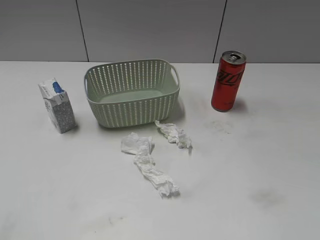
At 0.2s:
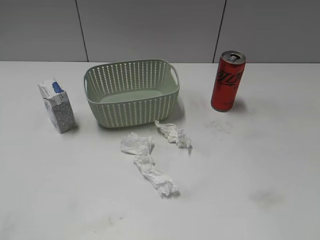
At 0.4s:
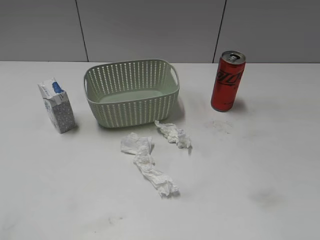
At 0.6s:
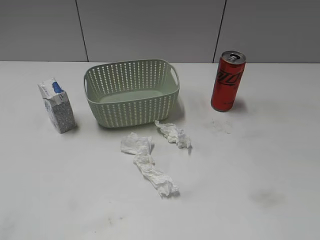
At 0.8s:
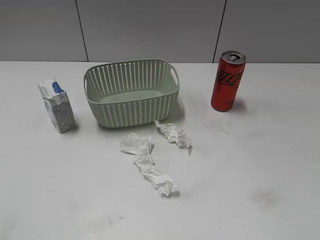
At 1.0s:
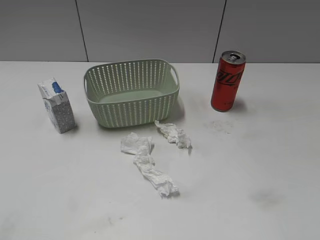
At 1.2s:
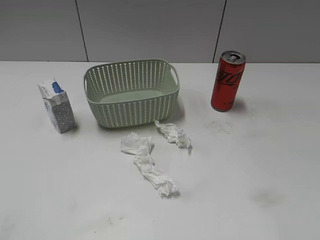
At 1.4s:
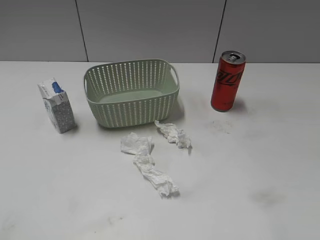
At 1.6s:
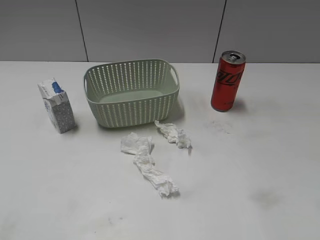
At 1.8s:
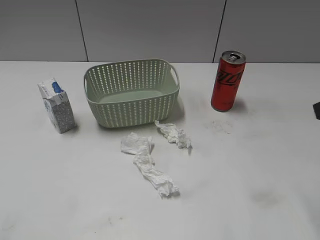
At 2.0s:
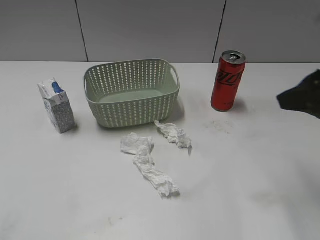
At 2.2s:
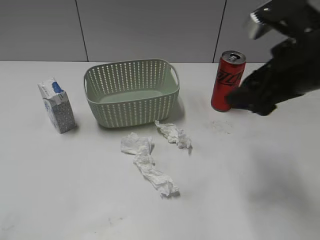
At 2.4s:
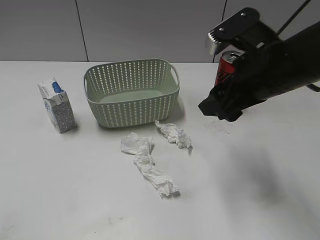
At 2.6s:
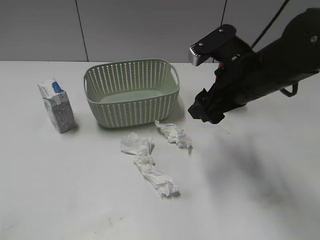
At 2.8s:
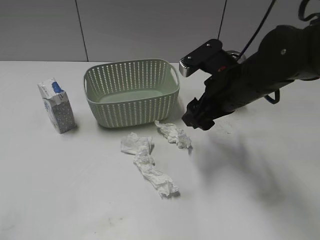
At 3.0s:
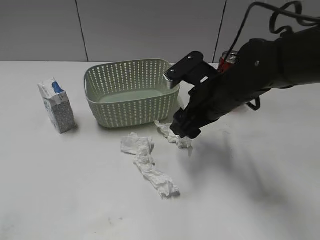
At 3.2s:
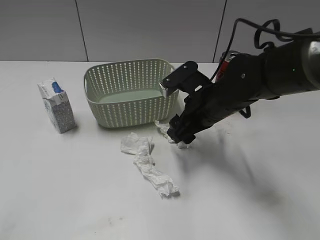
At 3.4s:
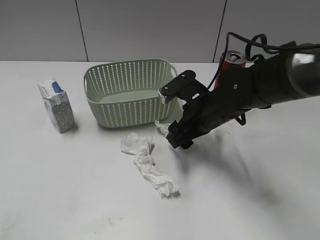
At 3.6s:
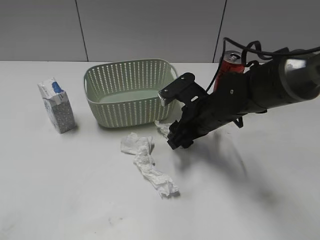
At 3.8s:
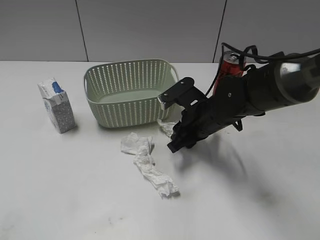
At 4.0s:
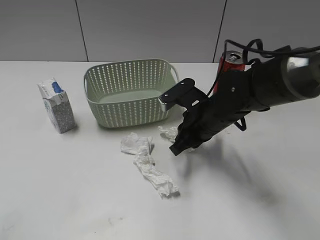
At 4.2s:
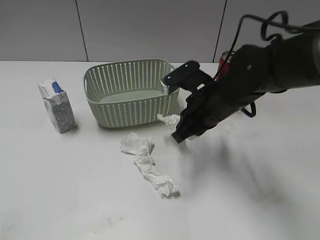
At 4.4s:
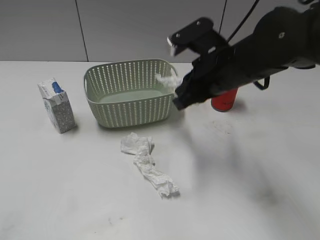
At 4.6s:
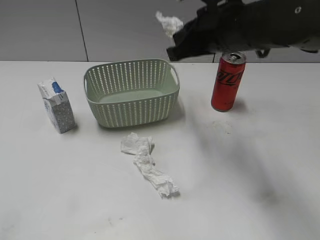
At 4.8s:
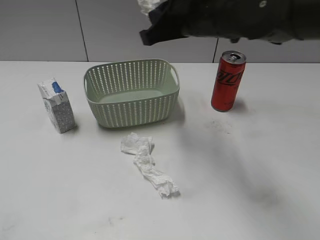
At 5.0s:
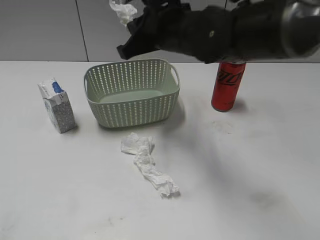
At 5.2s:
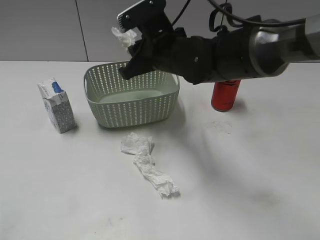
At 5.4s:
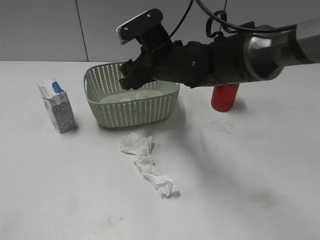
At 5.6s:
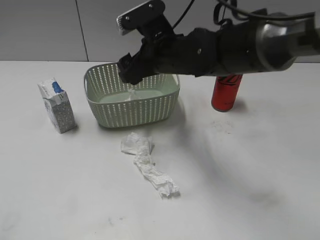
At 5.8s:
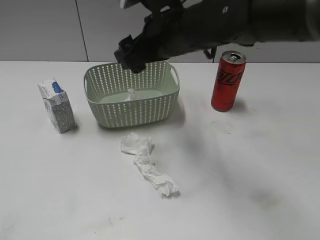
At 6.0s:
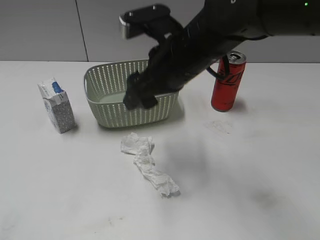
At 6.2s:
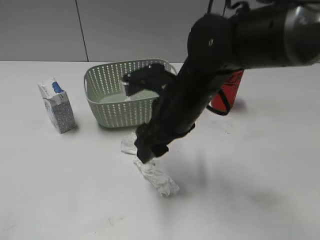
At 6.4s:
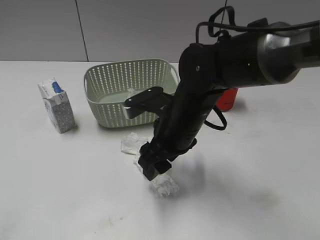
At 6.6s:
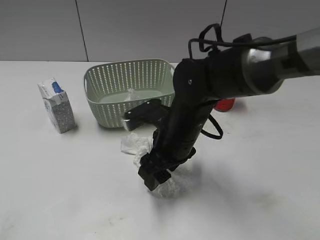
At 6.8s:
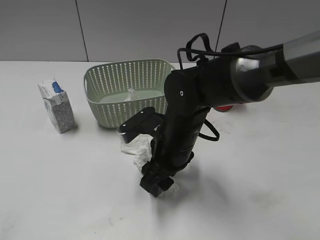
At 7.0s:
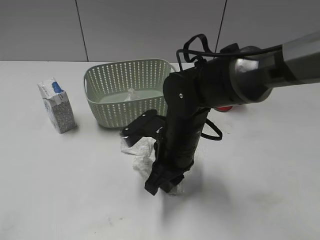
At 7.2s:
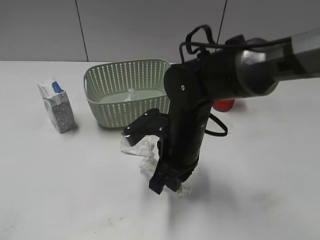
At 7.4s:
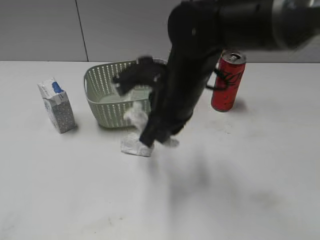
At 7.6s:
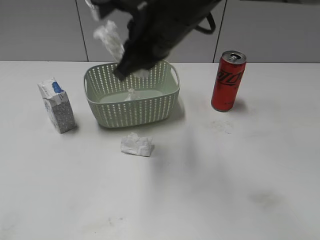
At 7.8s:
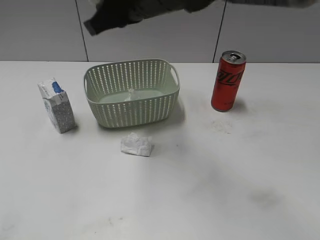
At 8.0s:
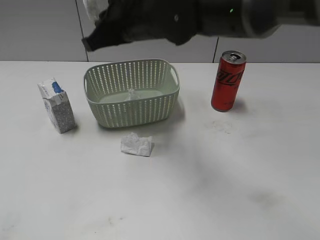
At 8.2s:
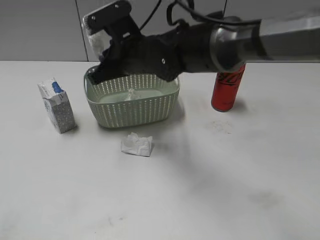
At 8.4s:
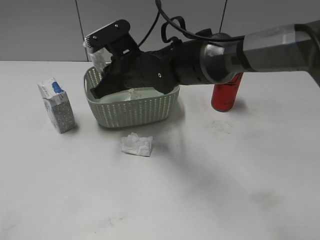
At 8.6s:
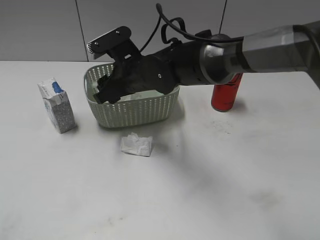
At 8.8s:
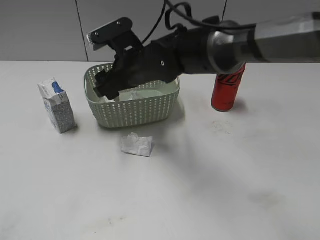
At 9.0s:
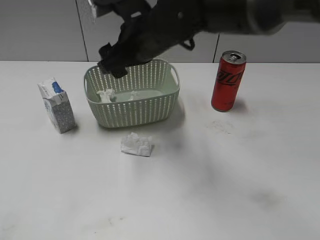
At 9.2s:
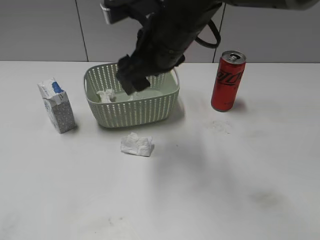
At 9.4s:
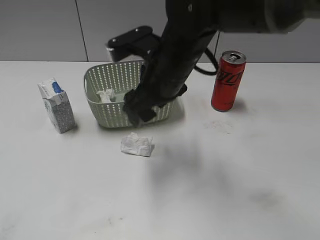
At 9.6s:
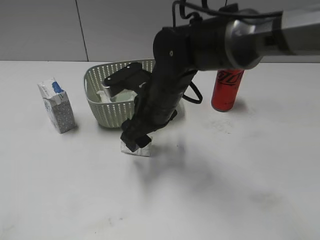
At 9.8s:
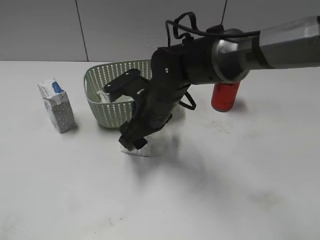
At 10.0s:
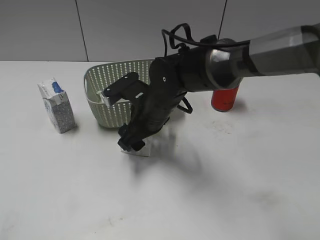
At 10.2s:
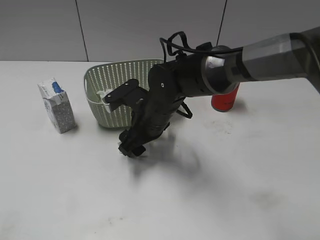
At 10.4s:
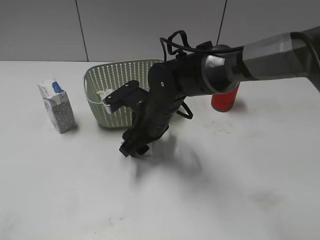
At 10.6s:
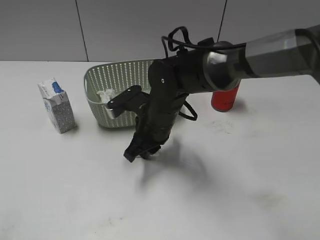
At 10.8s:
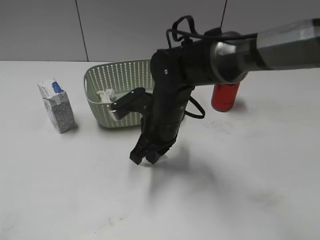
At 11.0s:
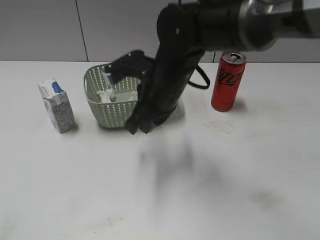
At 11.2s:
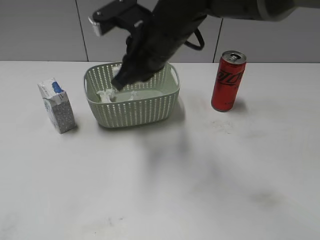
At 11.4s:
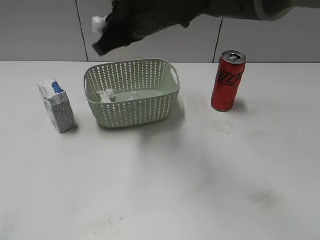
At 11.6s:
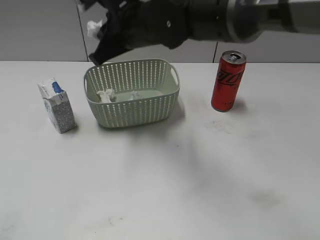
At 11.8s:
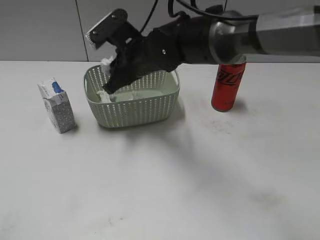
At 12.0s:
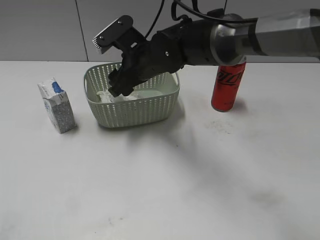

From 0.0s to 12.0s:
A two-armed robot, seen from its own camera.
Step, from 1.8s to 4.0s: Grasp the waste paper with right gripper.
Step, from 4.2s to 5.4s: Place the waste paper in the basket with right gripper.
Step, from 5.6s to 7.0s: Grasp the waste paper with right gripper.
Step, from 7.2s to 9.0s: Place the waste paper in the basket with right gripper.
Step, from 9.2s to 11.0s: Grasp the waste paper with right gripper.
From 1.6s to 3.0s: The right gripper travels forward, to the left and downward by some 30 cm.
From 3.0s to 4.4s: The right gripper closes its fingers.
From 4.4s to 6.0s: The right gripper moves up and down over approximately 10 cm, changing direction 2 times, and opens.
From 6.0s to 7.6s: The right gripper goes downward and returns, approximately 15 cm each way, and closes.
From 7.6s to 9.0s: The right gripper reaches approximately 10 cm downward, then returns, and opens its fingers.
From 9.0s to 10.4s: The right gripper is displaced downward by about 15 cm.
From 10.4s to 12.0s: The right gripper is displaced upward and forward by some 10 cm, and closes, then opens again.

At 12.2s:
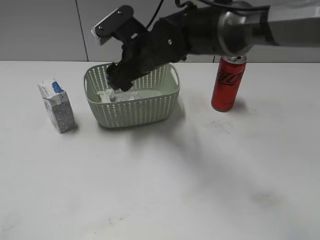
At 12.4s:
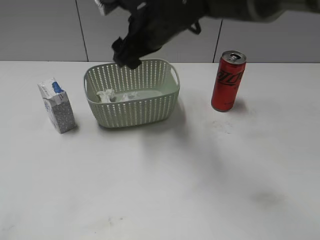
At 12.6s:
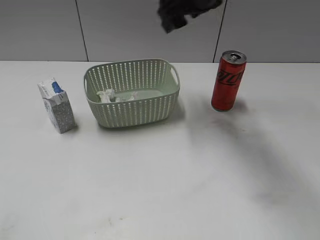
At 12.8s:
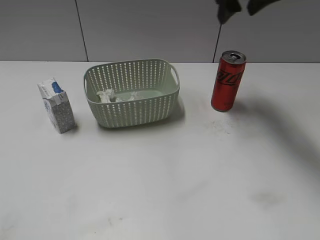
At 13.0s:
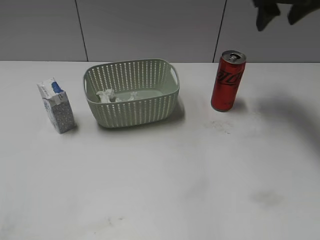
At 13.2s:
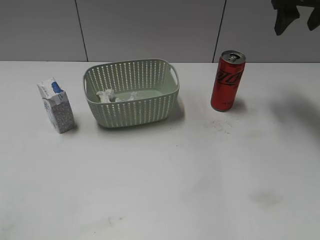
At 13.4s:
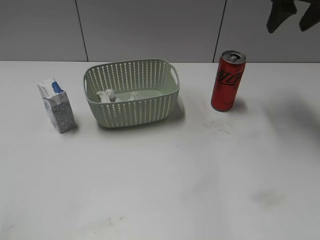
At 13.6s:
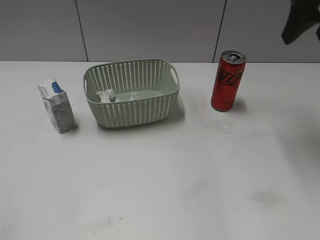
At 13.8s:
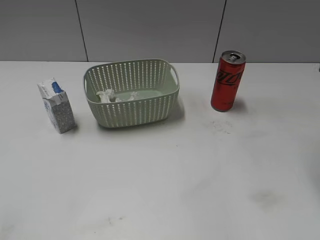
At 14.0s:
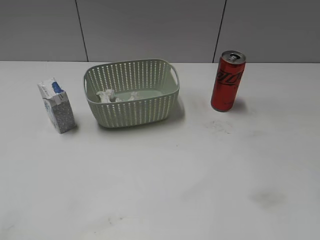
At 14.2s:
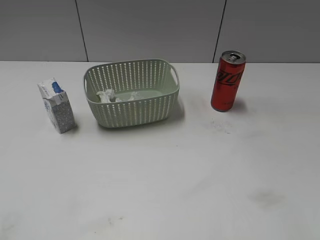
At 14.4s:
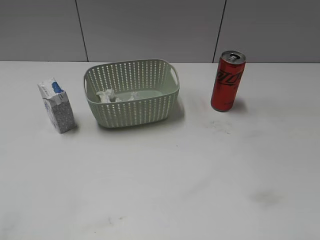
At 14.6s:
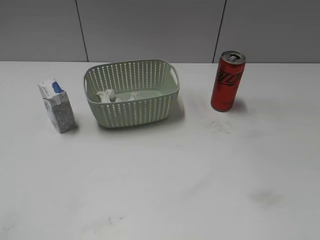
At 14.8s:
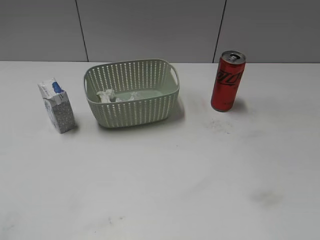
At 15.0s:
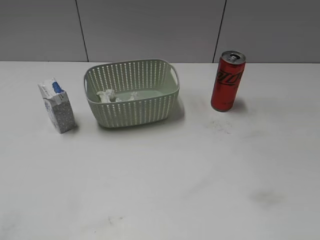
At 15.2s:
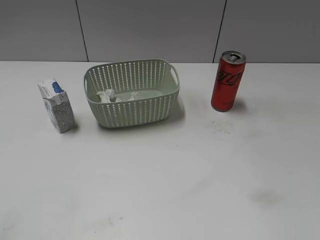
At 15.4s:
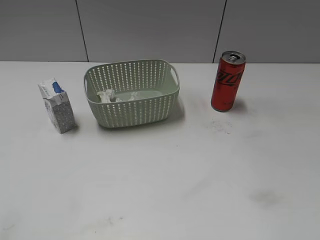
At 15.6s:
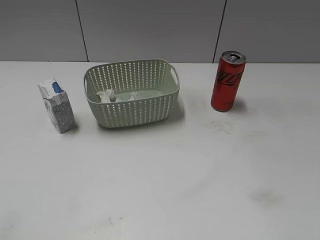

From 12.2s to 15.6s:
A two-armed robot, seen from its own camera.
From 12.2s to 13.8s: The right gripper travels to the right and upward by some 30 cm.

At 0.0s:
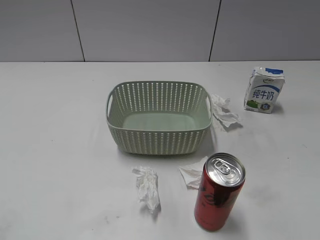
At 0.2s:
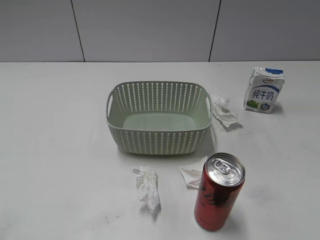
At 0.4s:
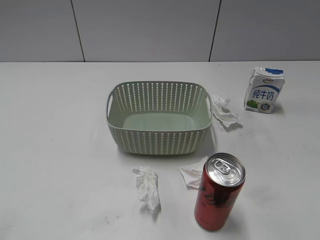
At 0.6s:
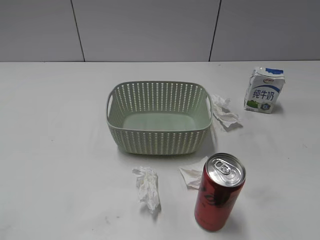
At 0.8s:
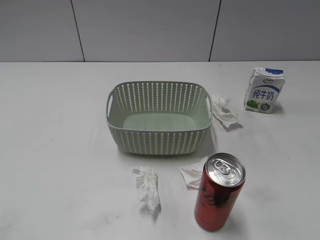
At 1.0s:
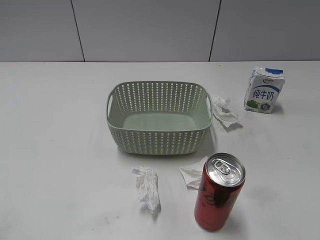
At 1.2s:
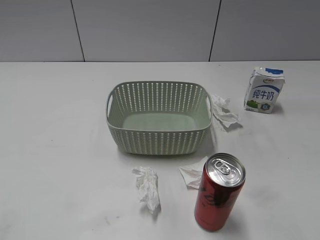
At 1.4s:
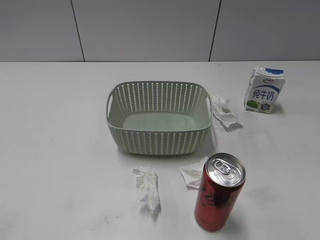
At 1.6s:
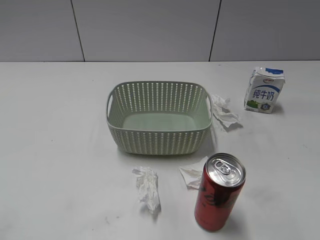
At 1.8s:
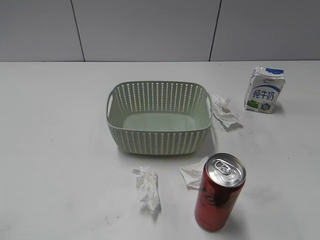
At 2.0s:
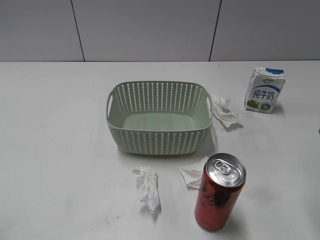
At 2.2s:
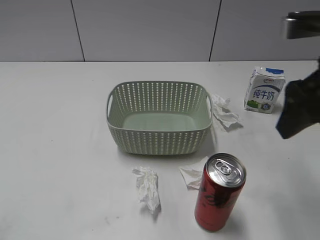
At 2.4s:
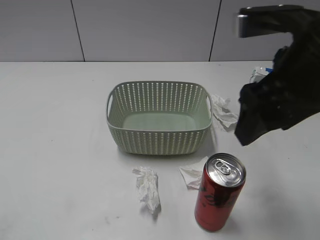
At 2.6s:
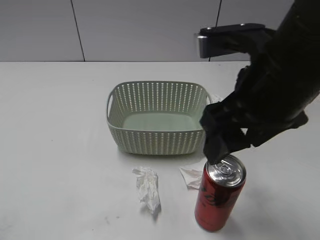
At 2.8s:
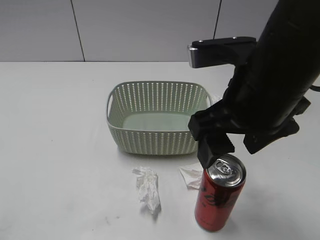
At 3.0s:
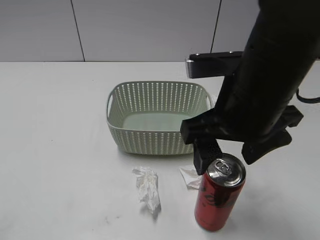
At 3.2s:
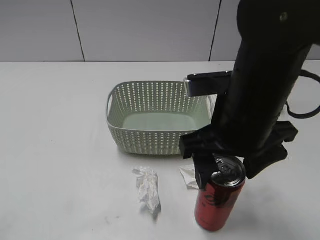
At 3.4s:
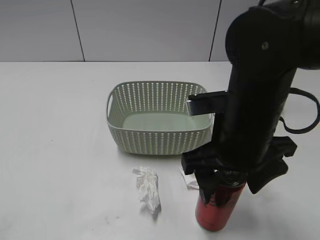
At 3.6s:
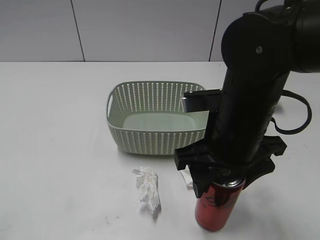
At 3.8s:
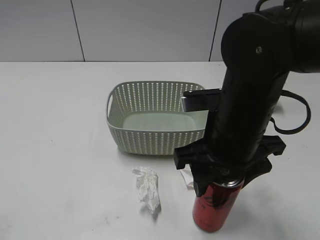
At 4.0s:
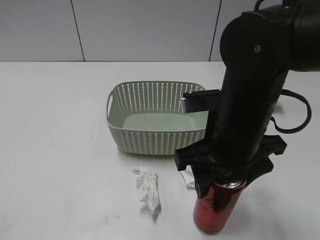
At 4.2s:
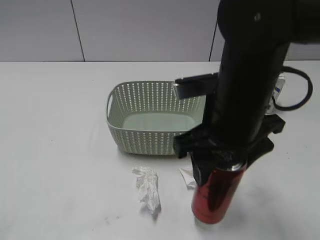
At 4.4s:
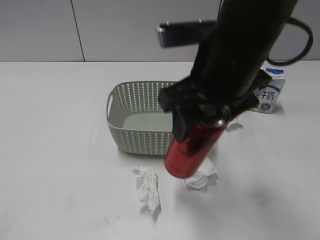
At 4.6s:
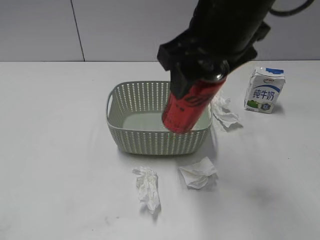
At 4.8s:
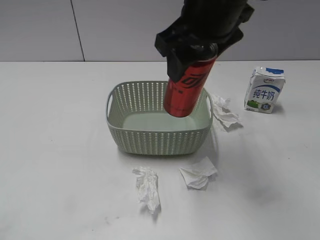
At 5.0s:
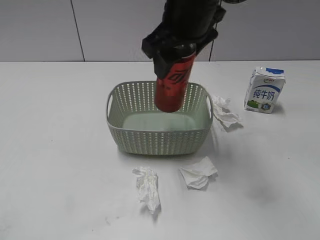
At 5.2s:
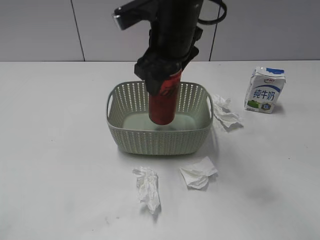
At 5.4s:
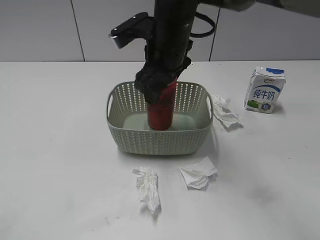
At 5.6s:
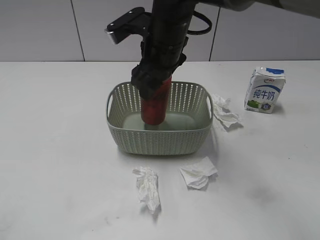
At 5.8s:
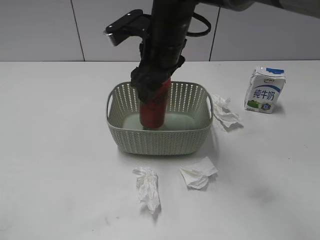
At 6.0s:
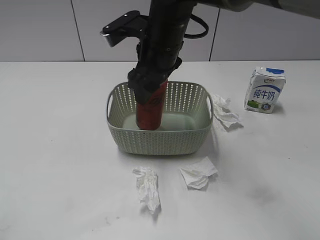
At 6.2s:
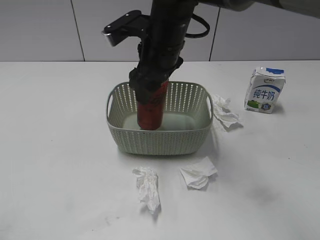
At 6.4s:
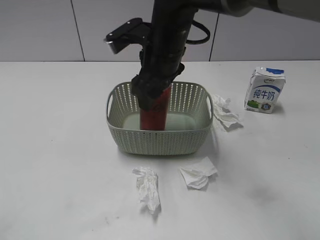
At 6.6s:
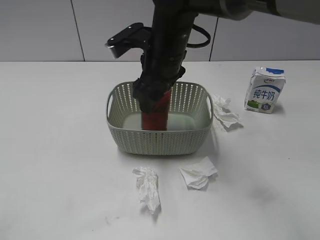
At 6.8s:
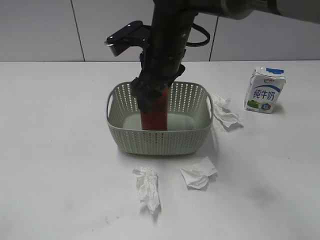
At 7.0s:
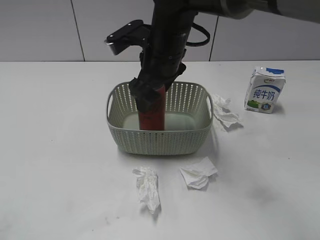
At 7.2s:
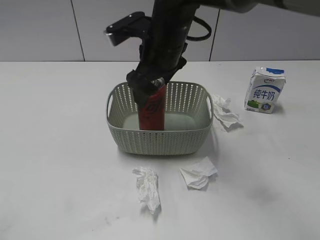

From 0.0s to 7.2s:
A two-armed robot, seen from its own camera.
Step, from 2.0s to 4.0s: Grasp the cola can with right gripper.
From 1.4s to 2.8s: The right gripper heads to the left and forward, covering roughly 20 cm.
From 2.8s to 4.4s: The right gripper moves approximately 10 cm downward and comes back, and closes up.
From 4.4s to 5.8s: The right gripper travels forward and to the left by about 15 cm.
From 5.8s to 7.2s: The right gripper opens.
